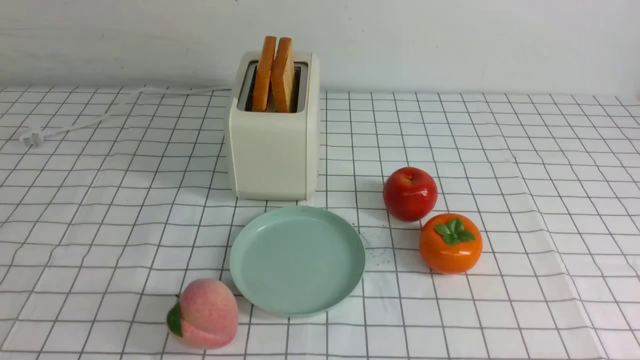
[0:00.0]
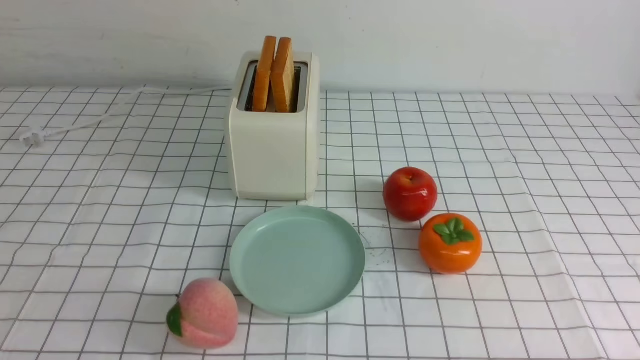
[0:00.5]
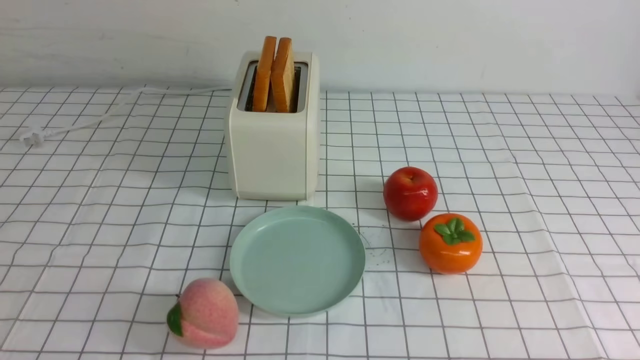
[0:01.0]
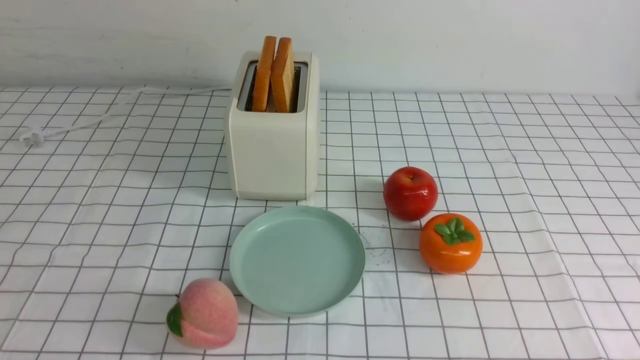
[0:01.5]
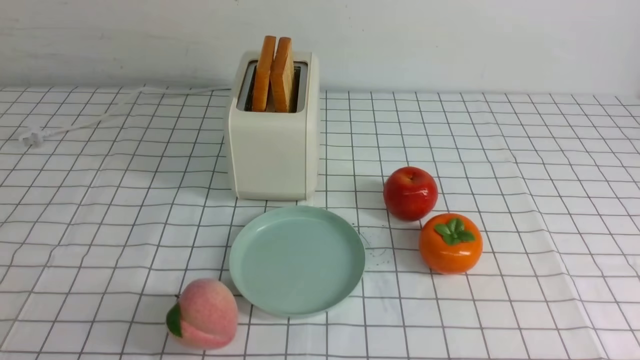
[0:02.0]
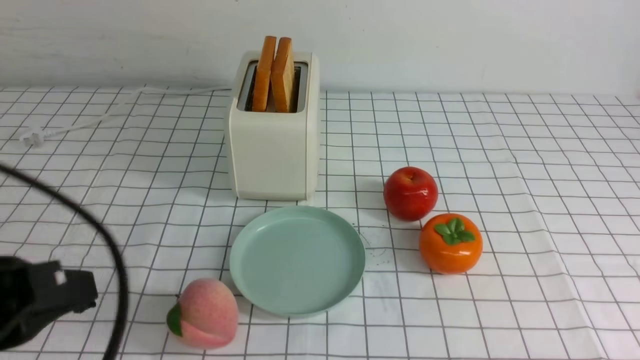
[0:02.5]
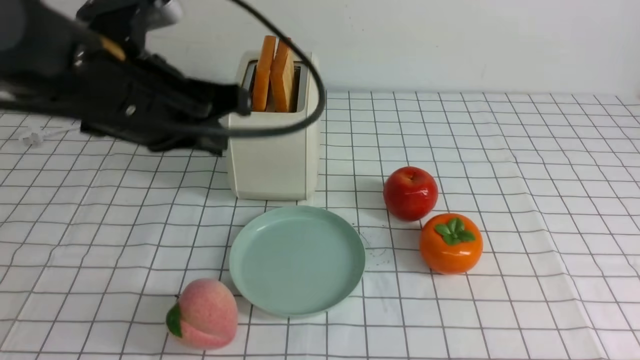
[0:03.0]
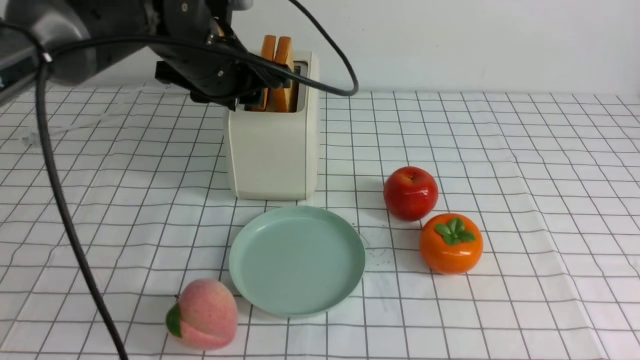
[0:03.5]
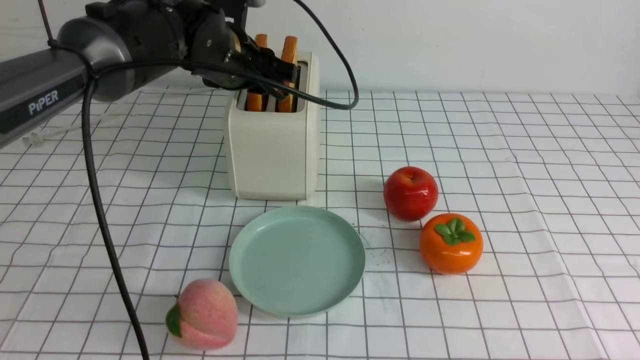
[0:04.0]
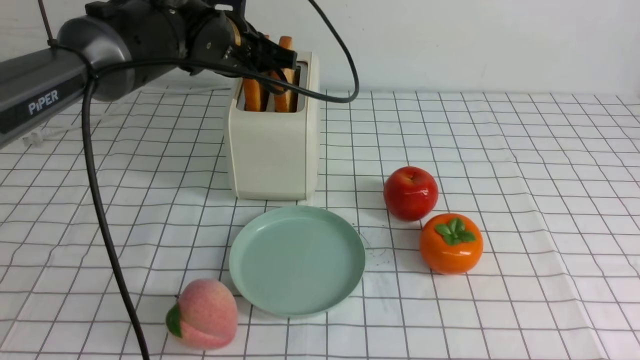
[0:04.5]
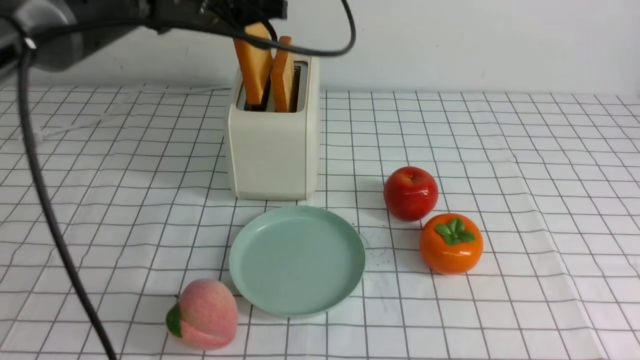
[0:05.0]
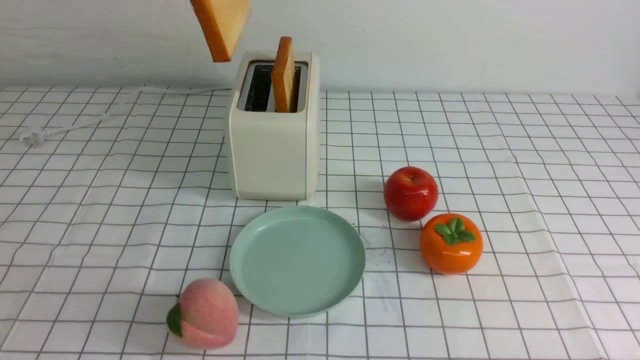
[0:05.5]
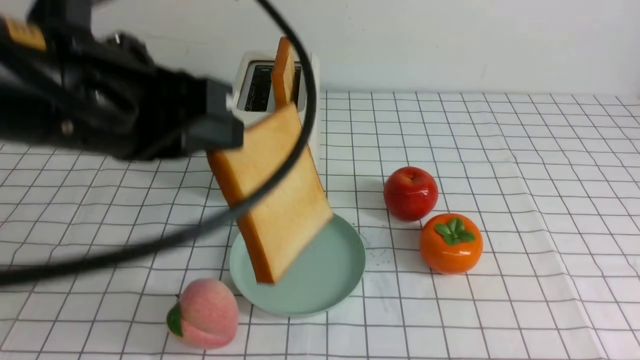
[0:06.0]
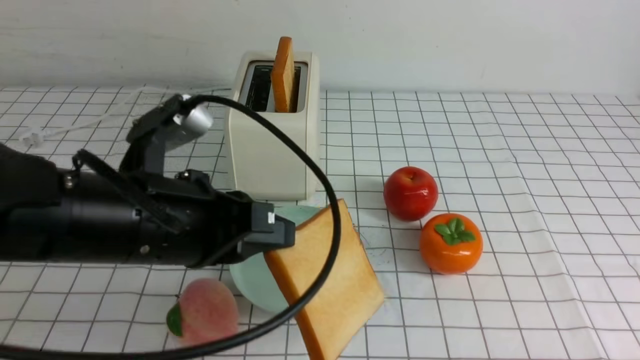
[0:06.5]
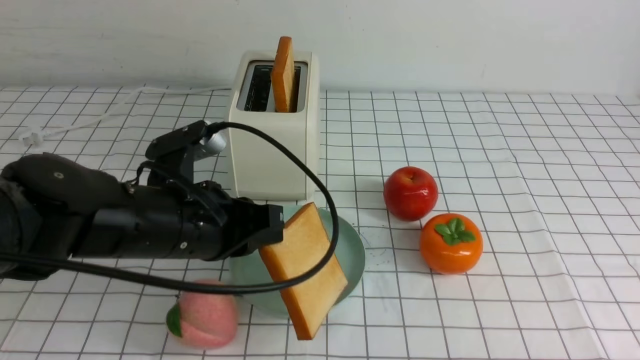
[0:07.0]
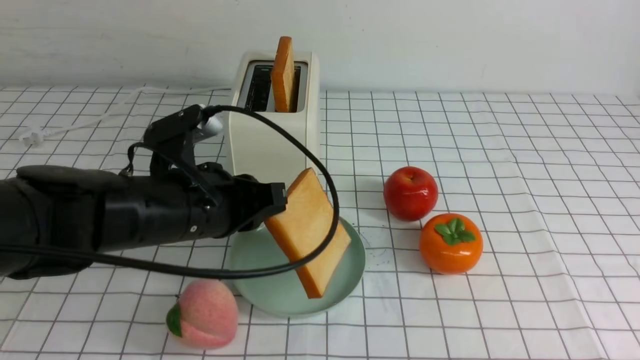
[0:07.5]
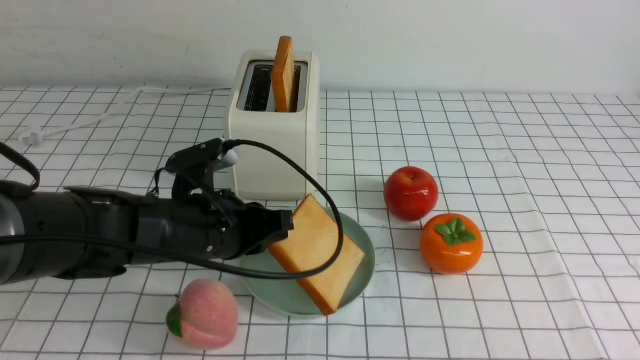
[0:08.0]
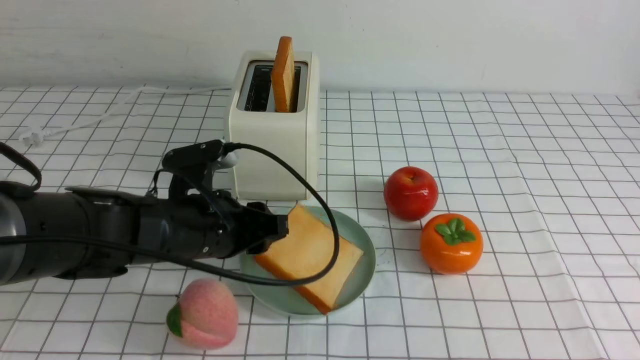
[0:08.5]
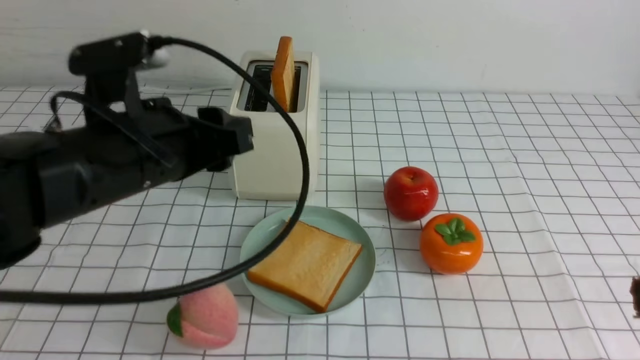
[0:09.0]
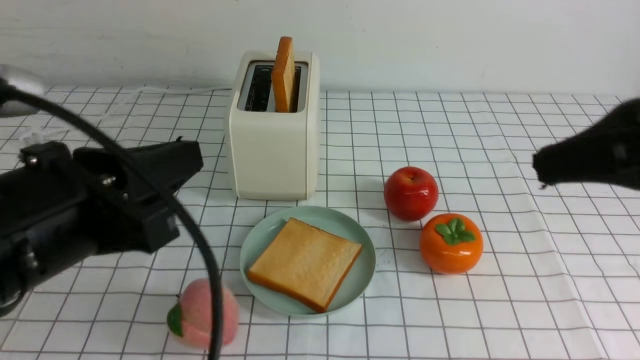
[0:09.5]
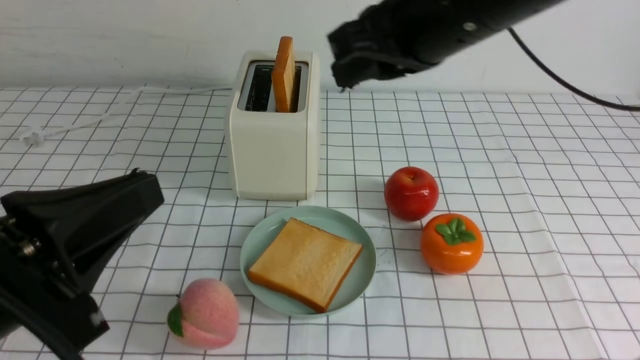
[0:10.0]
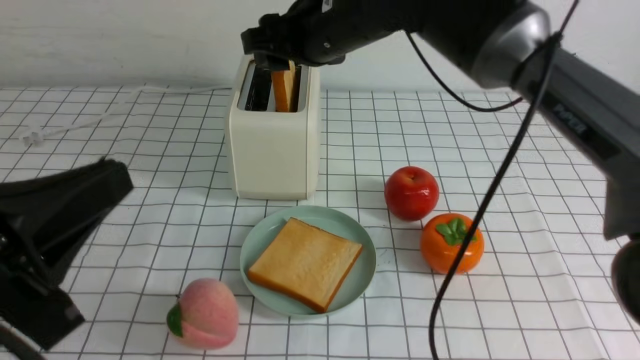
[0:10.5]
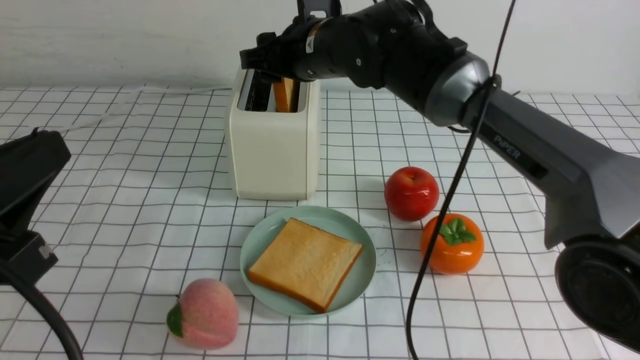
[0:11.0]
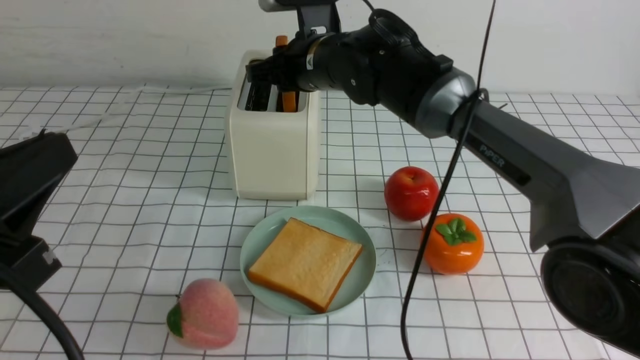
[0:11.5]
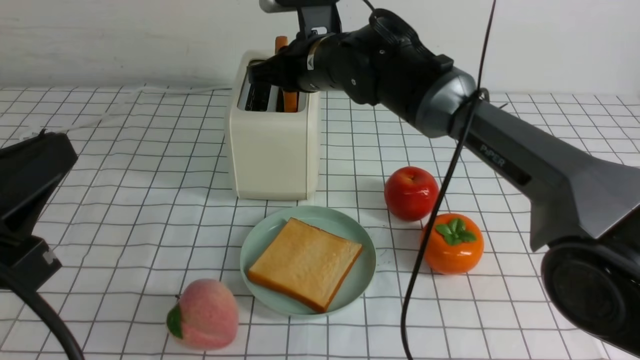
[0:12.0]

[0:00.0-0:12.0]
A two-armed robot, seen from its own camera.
Task of the whole recording: take toasted bread from bread machine on white checkered table place on plate.
Step, 0:00.0 to 0:05.0: use the left arm to take out a slice of bread.
Step, 0:05.5 to 0:08.5: use the left arm to put a slice of bread into the empty plate.
0:02.0 to 0:04.0: The left gripper is displaced forward by approximately 40 cm, and opens up.
0:04.0 to 0:06.0: The left gripper heads backward, covering approximately 20 cm, and closes.
0:06.0 to 0:08.0: The left gripper travels downward by about 20 cm.
0:08.0 to 0:10.0: The right gripper shifts about 40 cm forward, upward and to the left. The left gripper is displaced backward and upward by approximately 20 cm, and opens and closes again.
0:10.0 to 0:12.0: The right gripper is displaced forward, downward and to the left by roughly 20 cm, and opens, then closes once more.

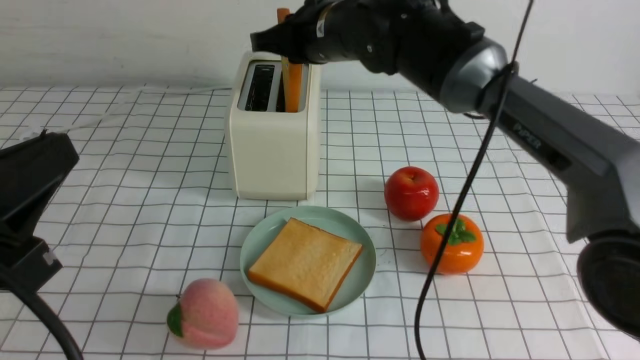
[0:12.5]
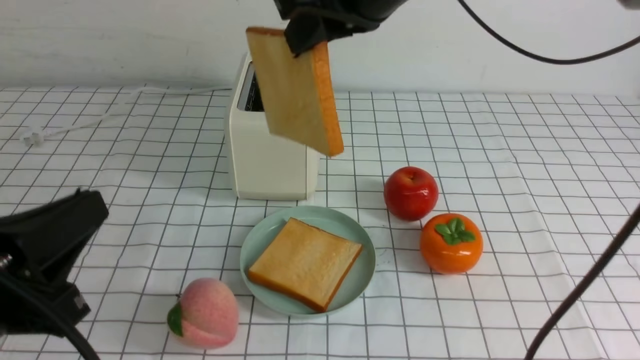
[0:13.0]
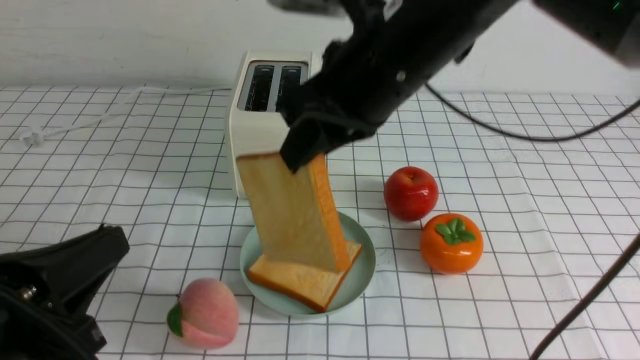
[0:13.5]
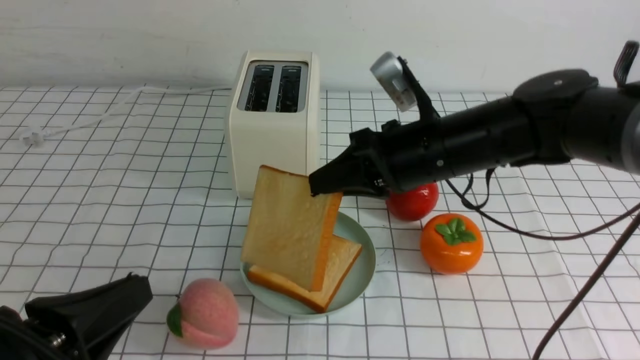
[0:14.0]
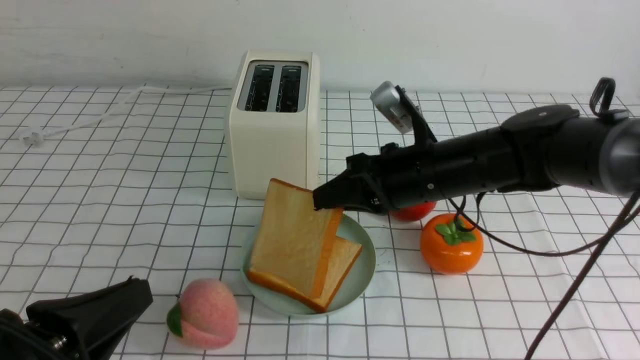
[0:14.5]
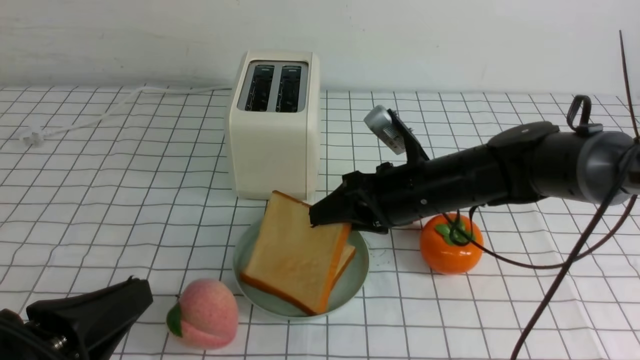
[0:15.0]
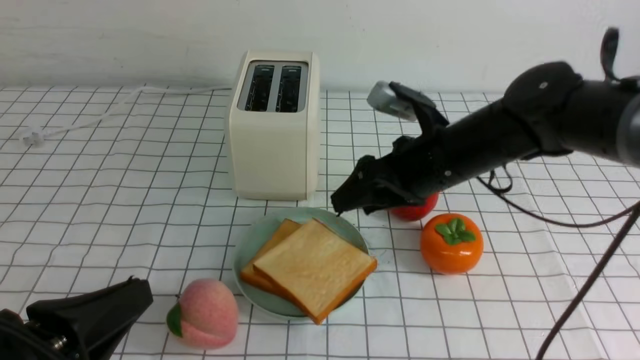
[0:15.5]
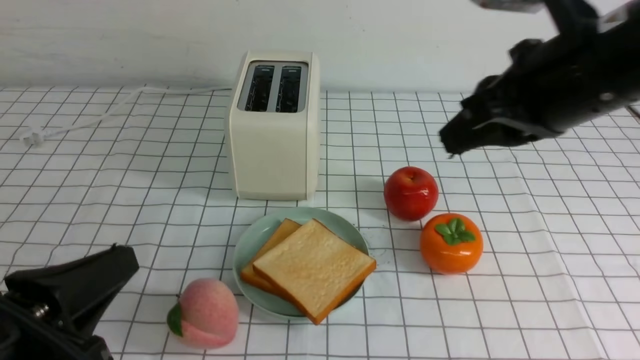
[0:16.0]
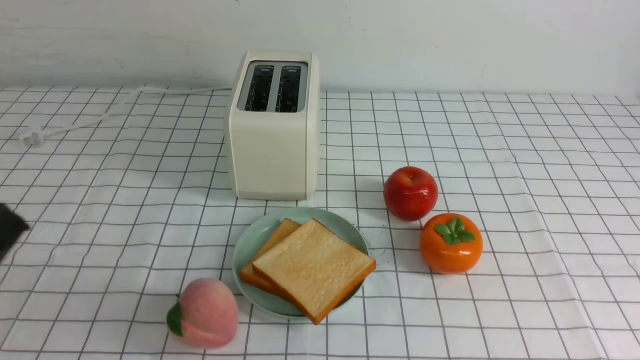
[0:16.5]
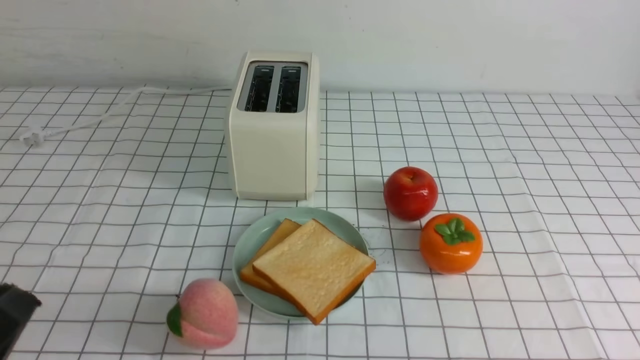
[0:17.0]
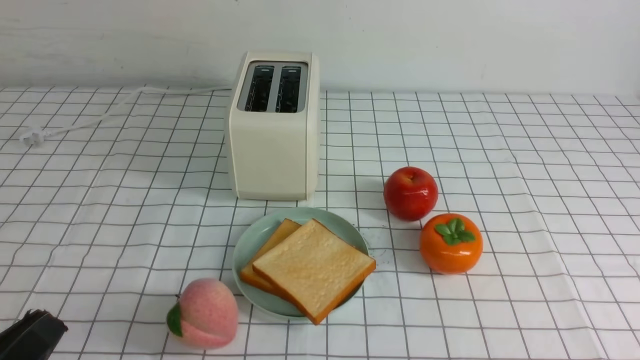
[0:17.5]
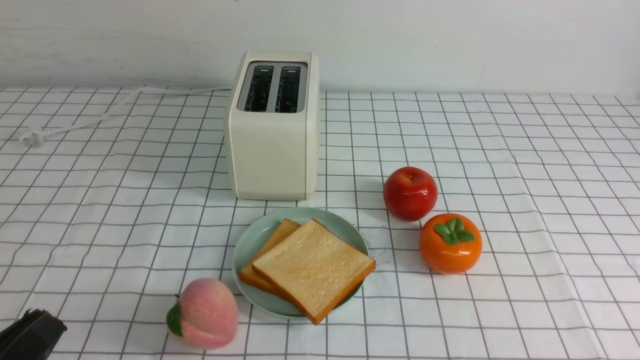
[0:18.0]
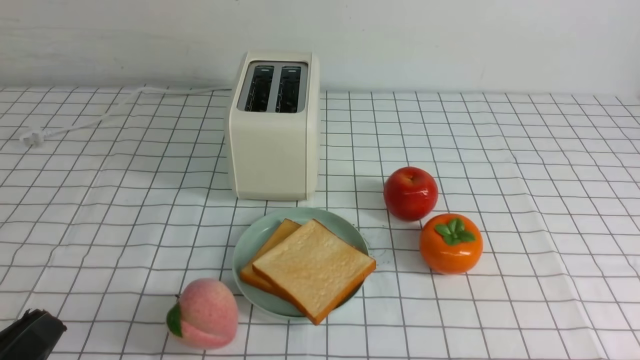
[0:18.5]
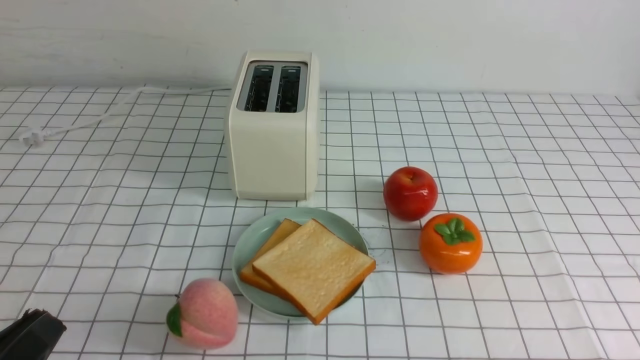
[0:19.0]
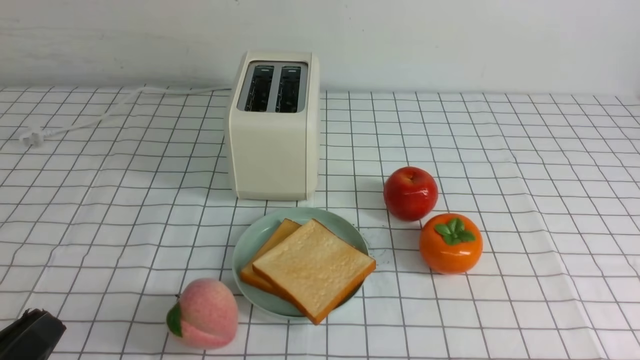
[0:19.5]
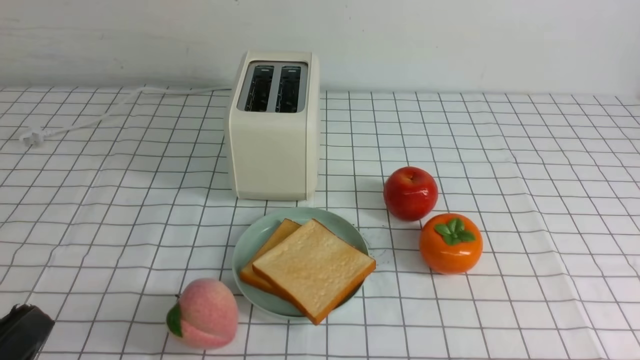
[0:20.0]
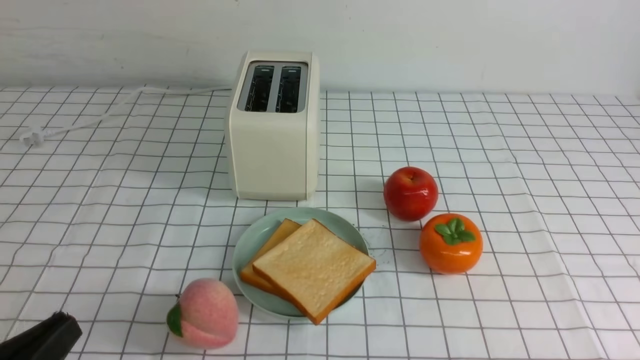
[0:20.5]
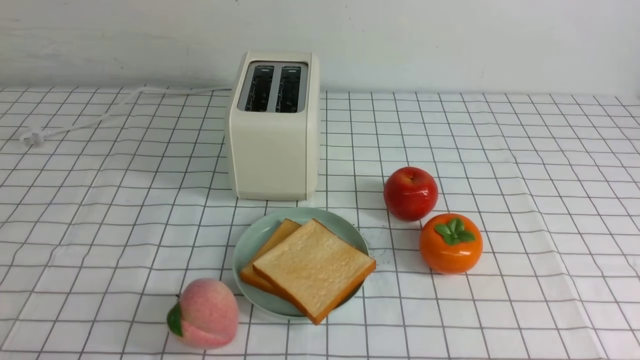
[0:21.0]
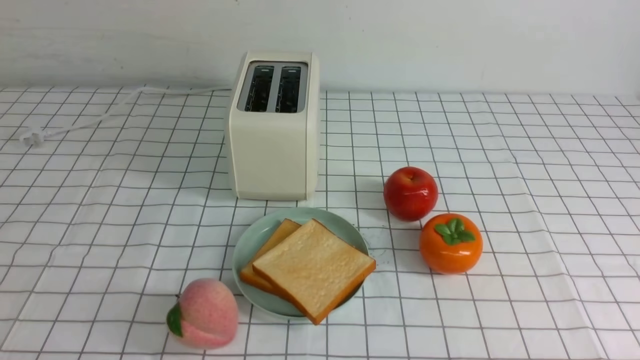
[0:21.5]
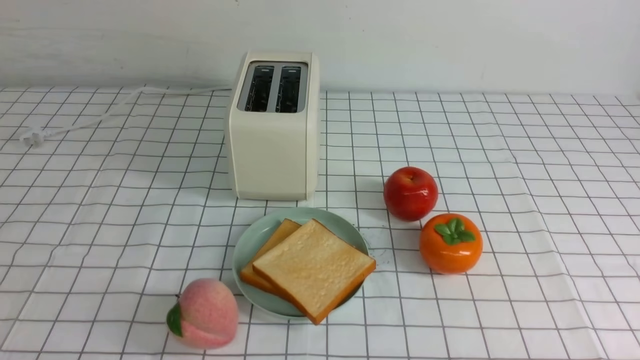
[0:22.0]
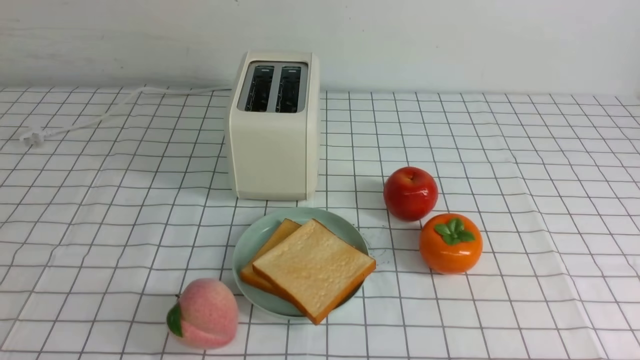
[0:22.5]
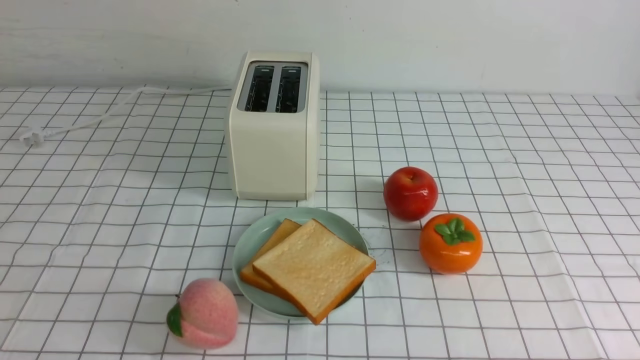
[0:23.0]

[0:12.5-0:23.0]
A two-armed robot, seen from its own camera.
Task of the whole recording: take toasted bread from bread machine on white checkered table place on plate.
Step, 0:13.0 to 0:15.5: use the right arm to put a slice of bread into the plate.
0:12.5 to 0:14.5: The right gripper shifts some 20 cm downward, to the right and backward. Meanwhile the left gripper moves downward, about 10 cm.
0:14.5 to 0:16.5: The left gripper heads upward, covering about 5 cm, while the right gripper travels backward, to the right and upward by about 35 cm, and opens, then closes again.
0:16.5 to 0:19.0: The left gripper shifts about 10 cm downward.
